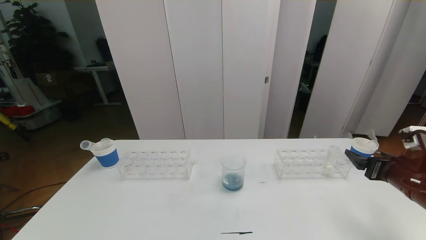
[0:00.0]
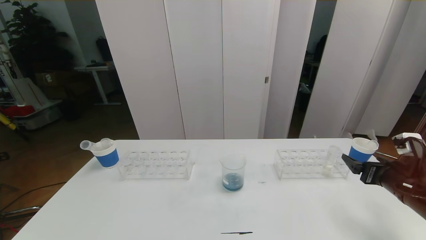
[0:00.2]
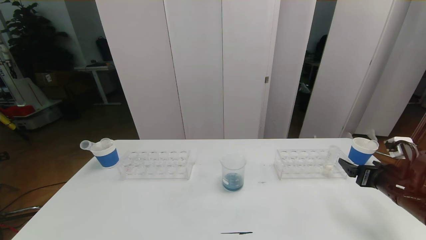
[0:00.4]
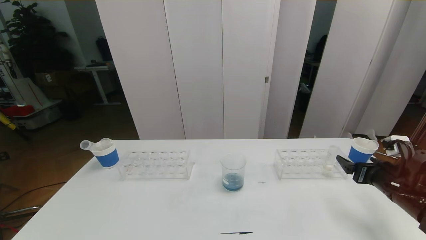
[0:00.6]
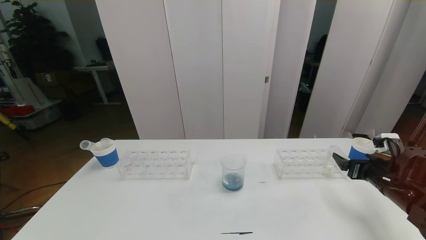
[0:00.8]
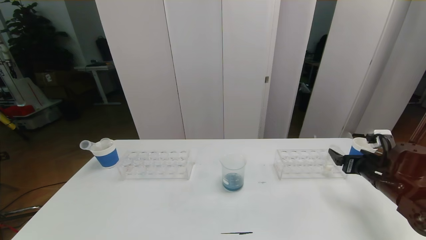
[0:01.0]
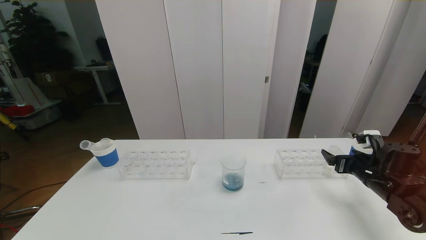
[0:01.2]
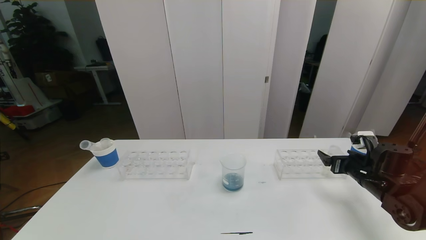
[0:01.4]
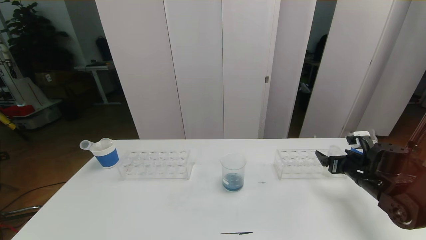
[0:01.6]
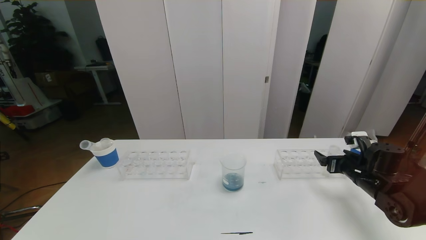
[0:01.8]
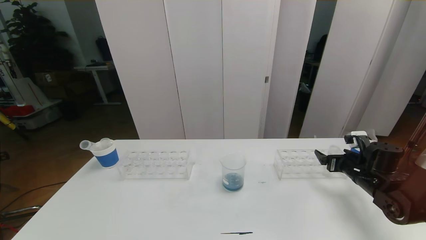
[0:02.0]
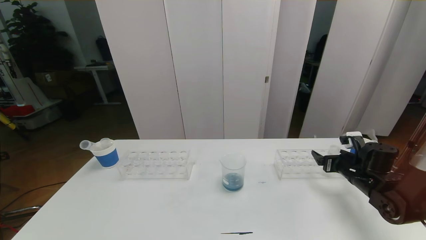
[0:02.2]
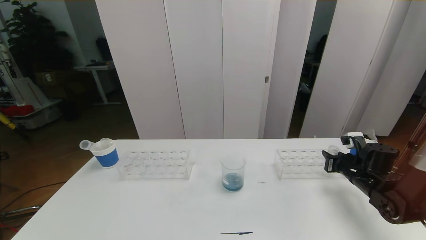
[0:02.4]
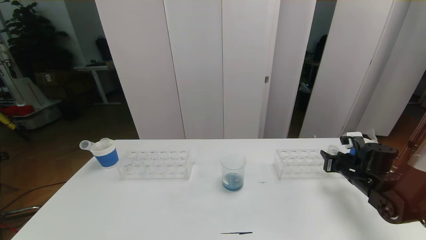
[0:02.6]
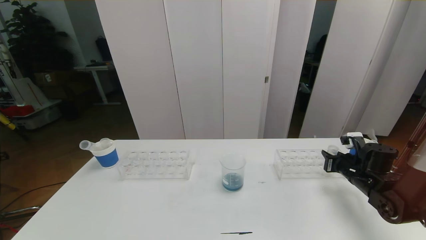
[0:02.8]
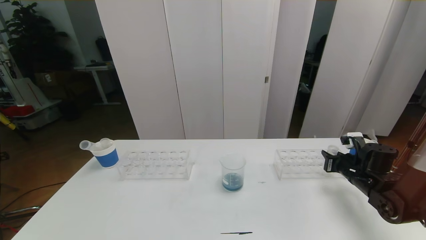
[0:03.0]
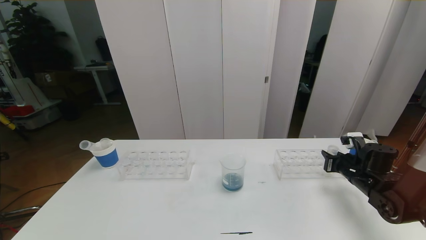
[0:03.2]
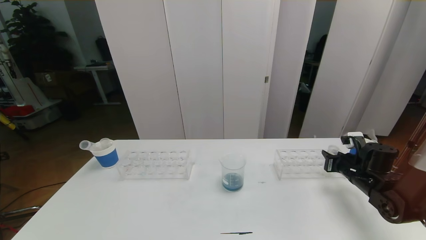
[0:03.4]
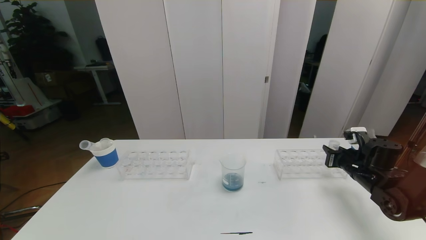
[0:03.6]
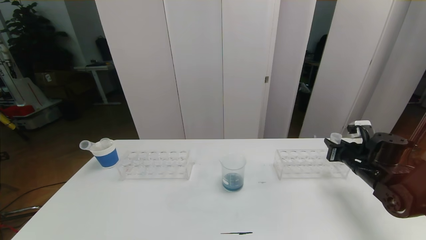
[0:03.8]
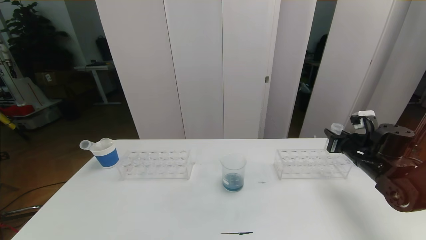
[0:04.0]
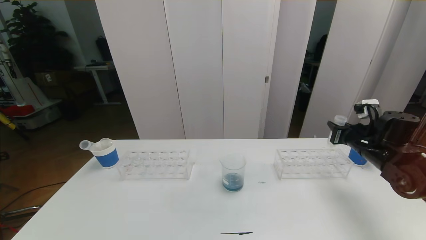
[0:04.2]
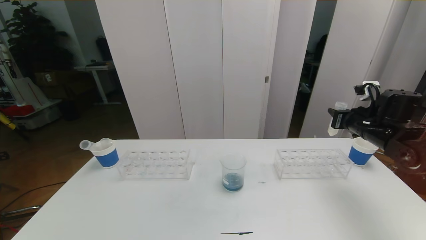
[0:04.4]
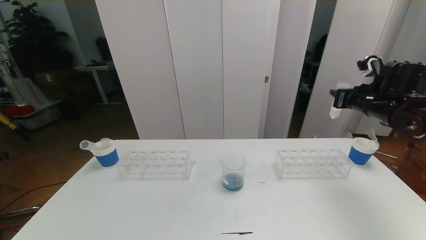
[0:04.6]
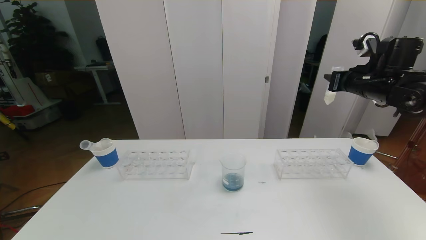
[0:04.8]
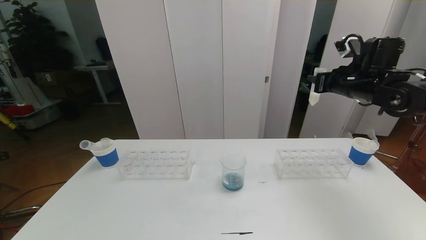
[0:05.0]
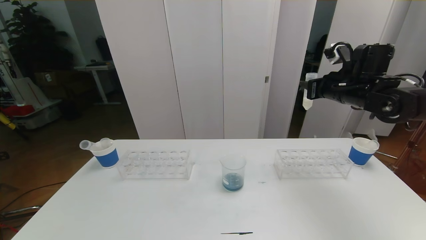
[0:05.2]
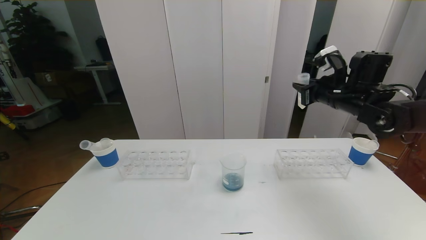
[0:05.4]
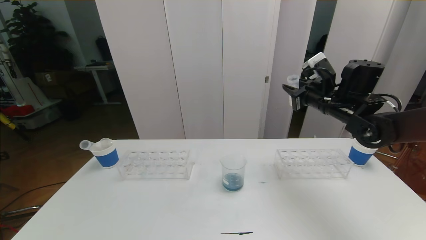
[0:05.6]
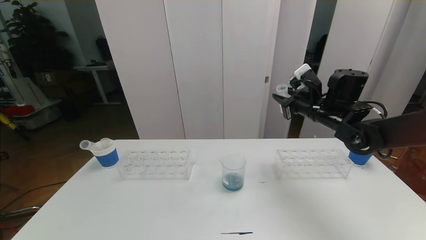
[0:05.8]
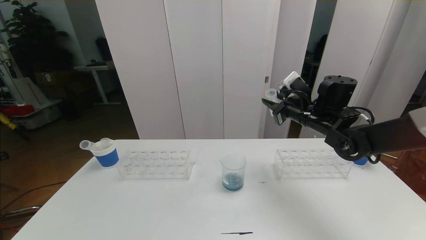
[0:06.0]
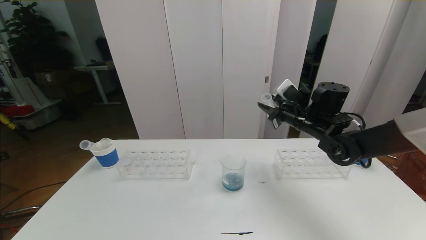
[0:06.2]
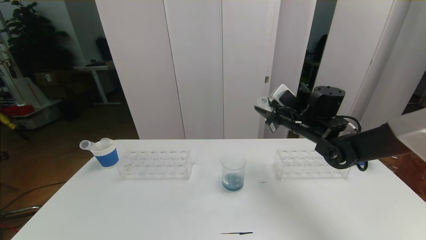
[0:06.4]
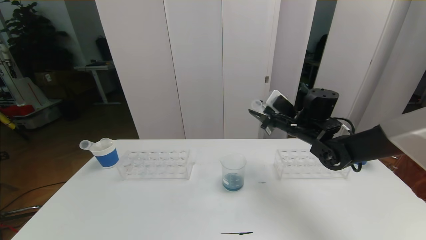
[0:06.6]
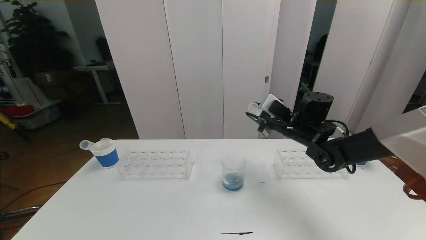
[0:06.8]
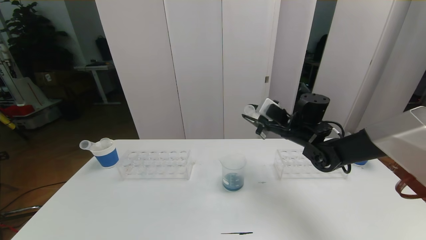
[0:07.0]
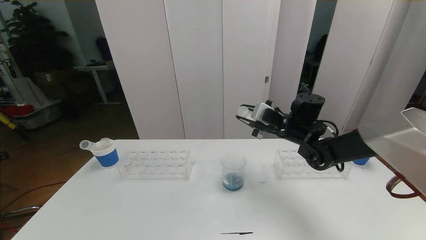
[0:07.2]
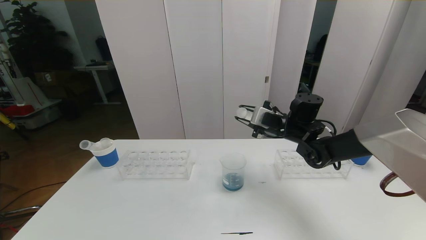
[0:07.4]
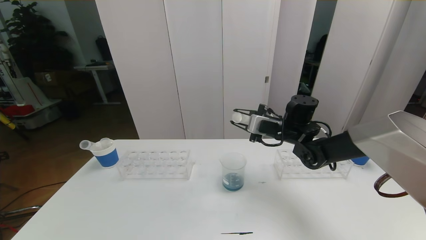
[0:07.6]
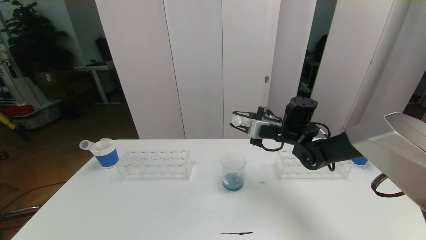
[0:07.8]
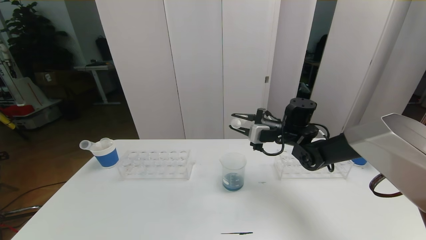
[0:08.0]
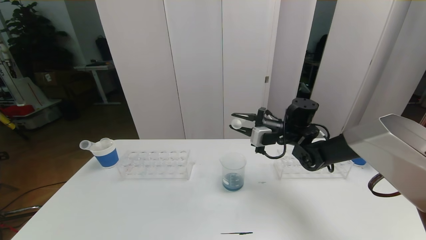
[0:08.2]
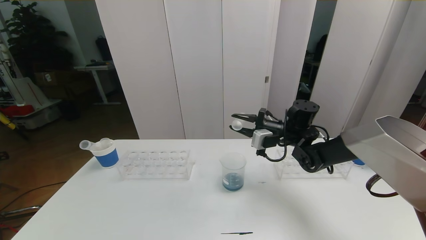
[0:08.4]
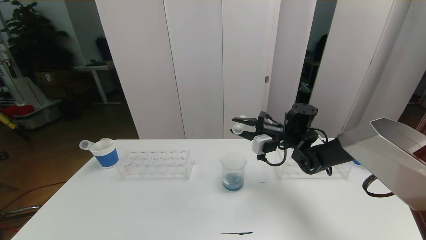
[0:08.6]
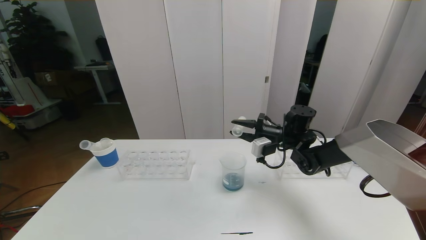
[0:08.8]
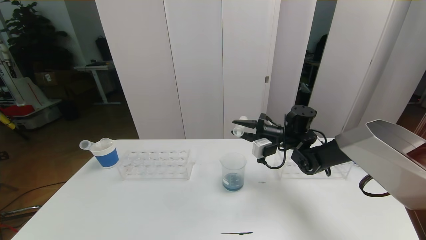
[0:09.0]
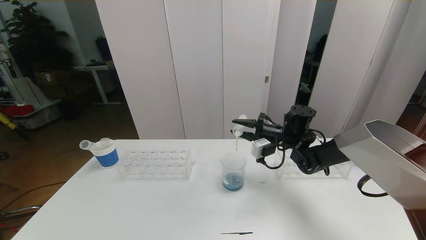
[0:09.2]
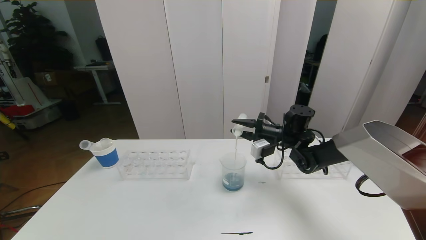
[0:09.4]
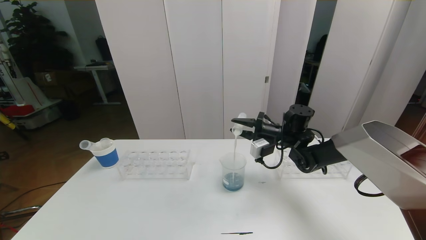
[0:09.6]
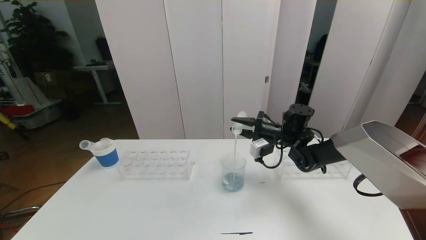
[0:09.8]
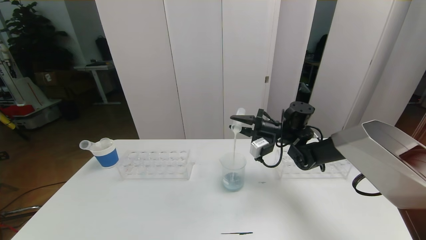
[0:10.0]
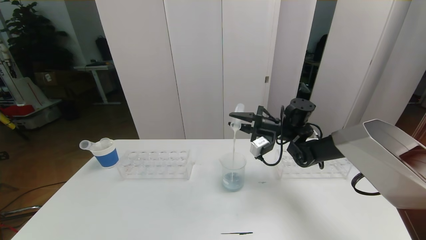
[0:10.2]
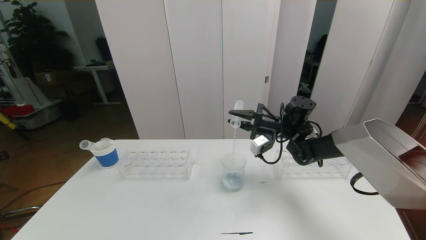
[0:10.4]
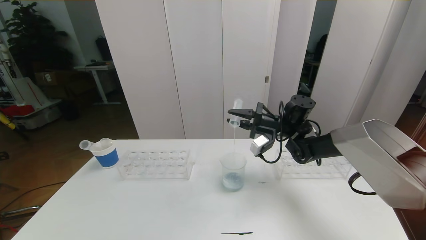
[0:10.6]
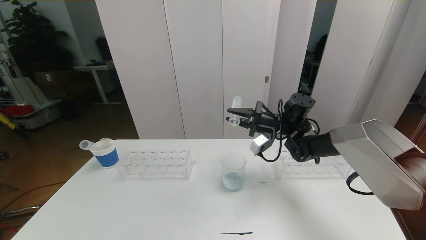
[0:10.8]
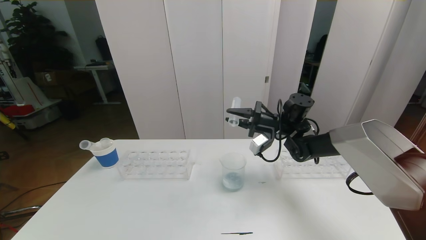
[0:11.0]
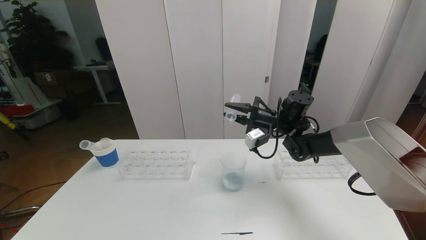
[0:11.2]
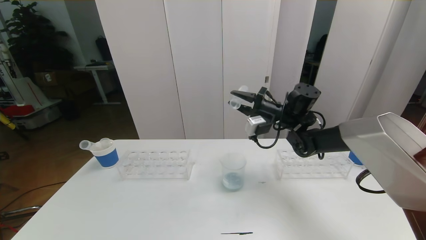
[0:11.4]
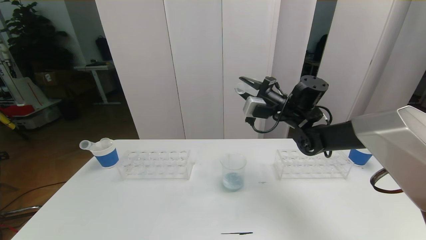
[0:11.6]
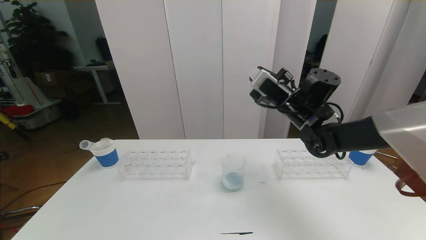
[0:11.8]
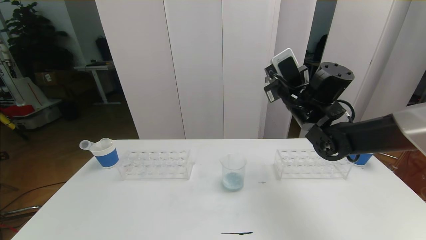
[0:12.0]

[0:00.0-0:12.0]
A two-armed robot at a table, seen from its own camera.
Task of the whole recording: pick up the test tube with red pigment the test tube with blue pigment and the test tube with white pigment by grippers and pour them into the beaker.
0:00.0 to 0:01.6: The right gripper is displaced forward and downward by about 10 cm.
0:01.6 to 0:03.0: The right gripper closes.
0:03.0 to 0:04.4: The right gripper goes roughly 15 cm upward.
0:04.4 to 0:06.0: The right gripper shifts about 15 cm to the left.
0:06.0 to 0:07.6: The right gripper is displaced to the left and downward by some 5 cm.
0:09.0 to 0:10.4: The grippers stay close to where they were, moving slightly.
0:10.4 to 0:12.0: The right gripper moves upward and backward, some 10 cm.

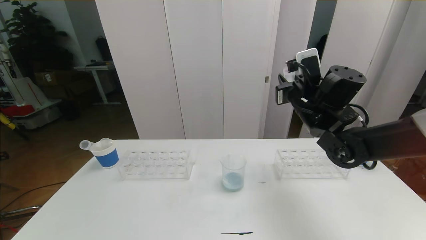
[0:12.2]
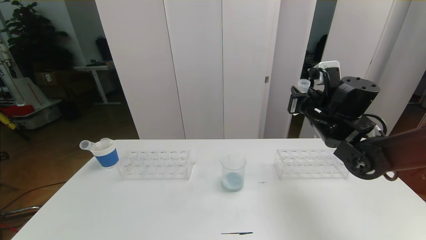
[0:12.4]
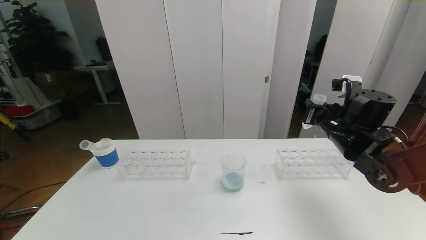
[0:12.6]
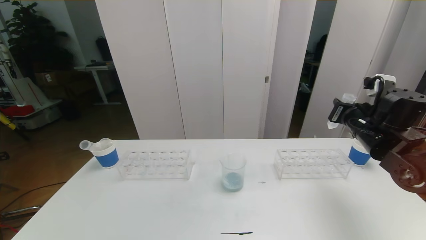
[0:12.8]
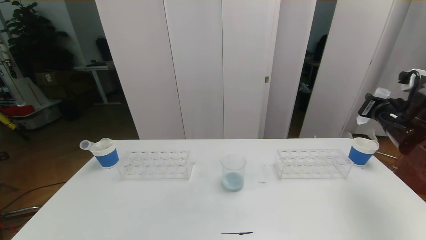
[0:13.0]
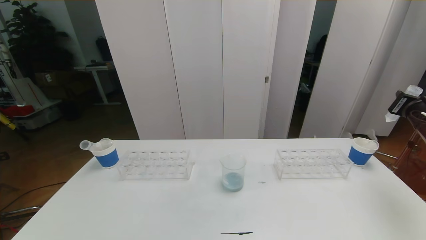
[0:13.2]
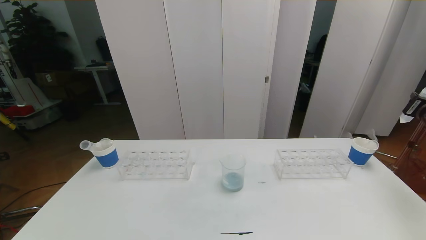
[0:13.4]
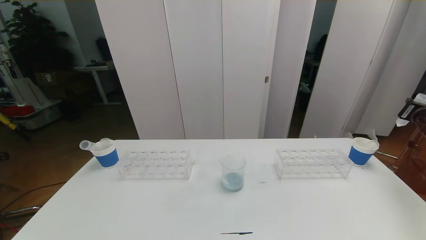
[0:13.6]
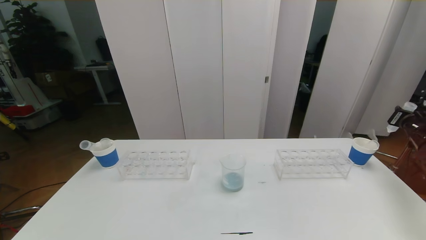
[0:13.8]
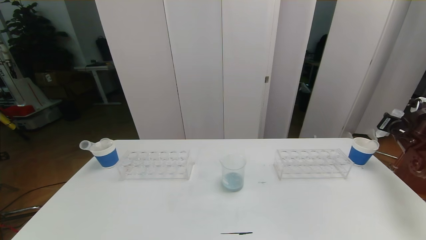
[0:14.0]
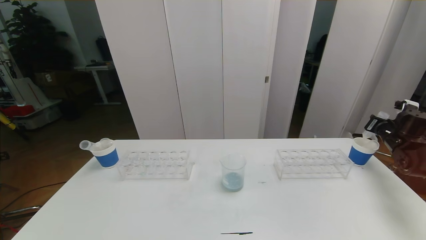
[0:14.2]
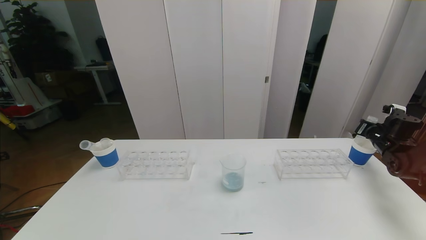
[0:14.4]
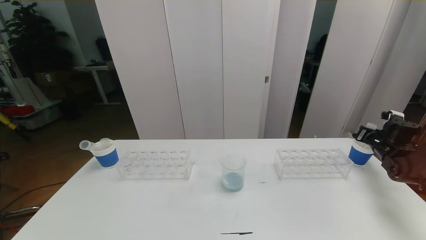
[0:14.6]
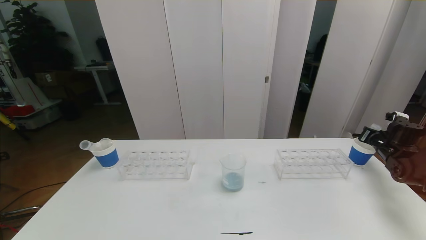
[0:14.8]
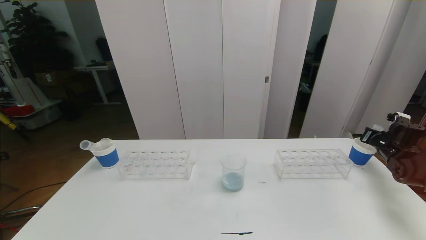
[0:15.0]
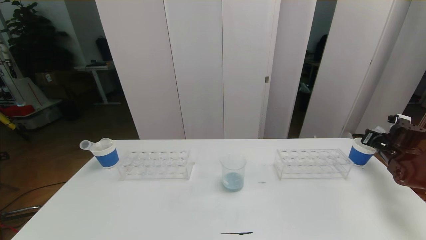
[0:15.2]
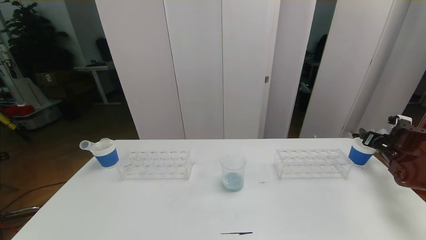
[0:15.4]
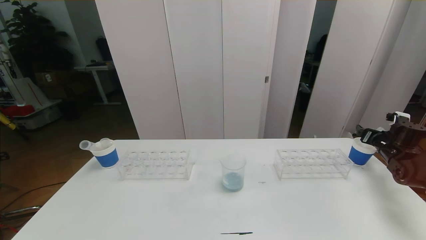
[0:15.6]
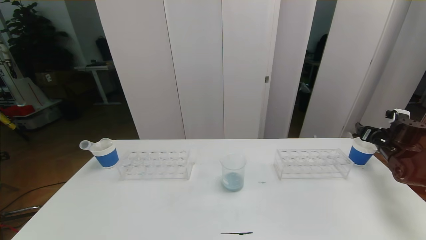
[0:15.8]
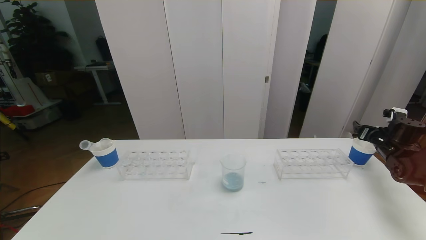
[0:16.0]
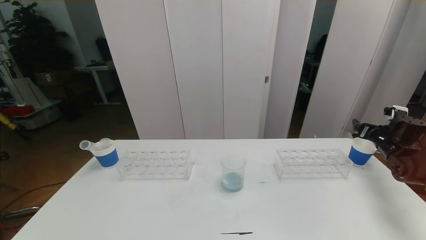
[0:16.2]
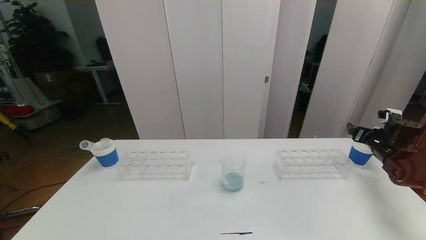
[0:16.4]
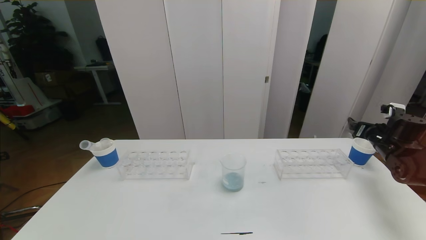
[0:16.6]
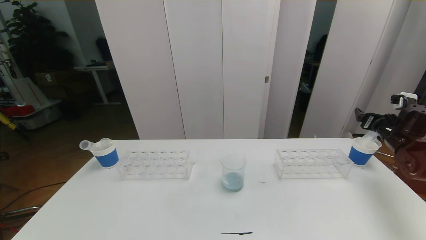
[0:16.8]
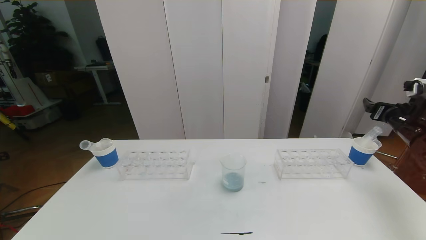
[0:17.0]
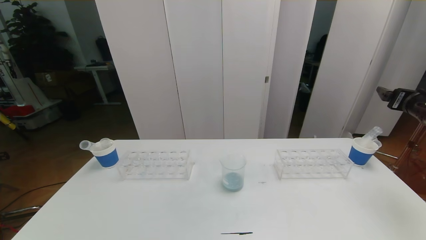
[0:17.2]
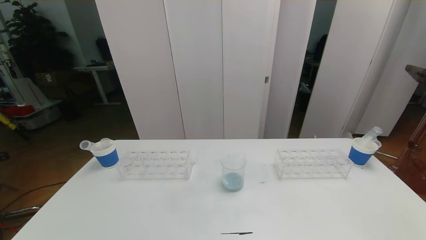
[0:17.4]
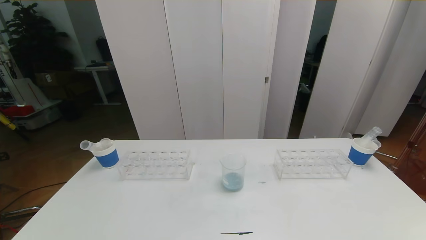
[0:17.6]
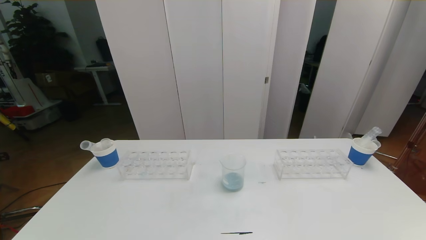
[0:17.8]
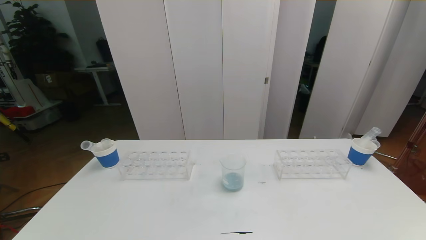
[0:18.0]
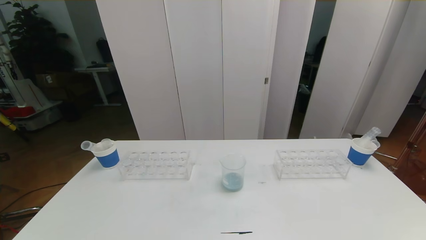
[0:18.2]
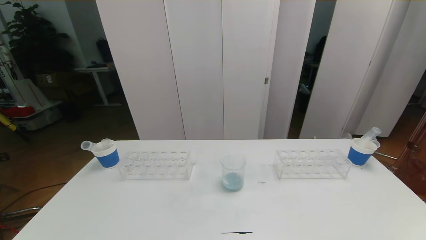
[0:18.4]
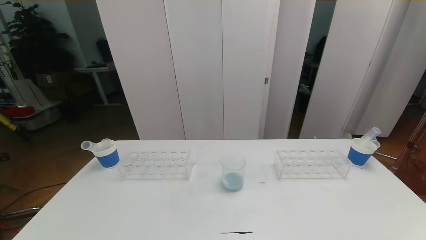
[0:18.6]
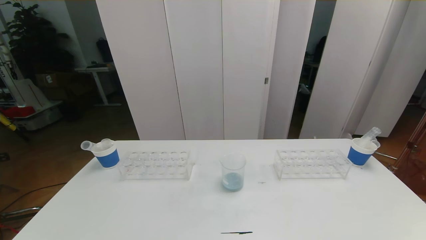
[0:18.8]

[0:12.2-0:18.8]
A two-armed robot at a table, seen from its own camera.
Task of the whole recording: pick up the test tube with red pigment the test tube with blue pigment and the test tube with white pigment by grippers and pour them into the beaker.
0:12.2 to 0:13.8: The right gripper moves to the right, some 30 cm.
0:13.8 to 0:15.4: The right gripper is displaced downward by about 10 cm, and opens its fingers.
0:15.4 to 0:17.2: The right gripper goes some 20 cm upward and backward.
0:17.2 to 0:18.8: The right gripper moves backward, about 35 cm.
